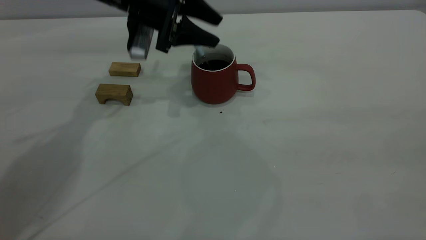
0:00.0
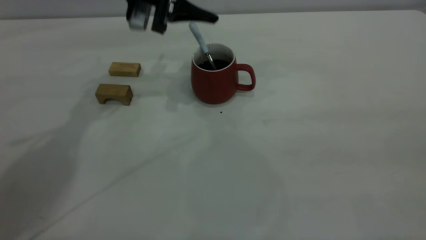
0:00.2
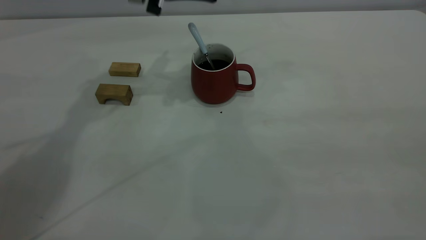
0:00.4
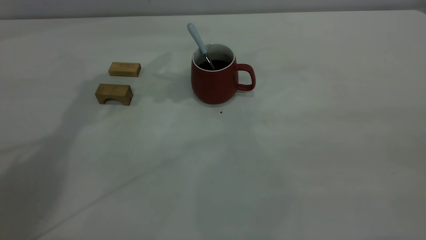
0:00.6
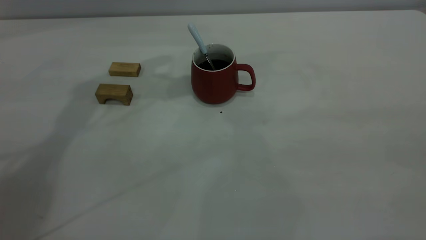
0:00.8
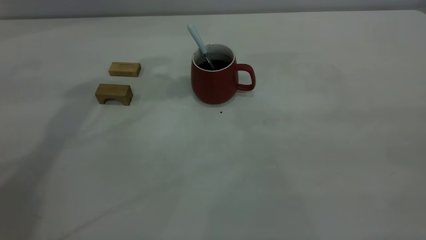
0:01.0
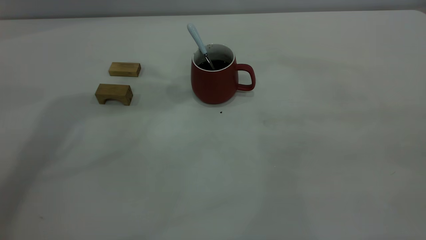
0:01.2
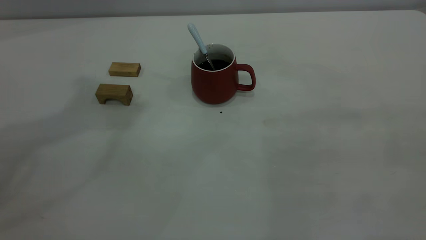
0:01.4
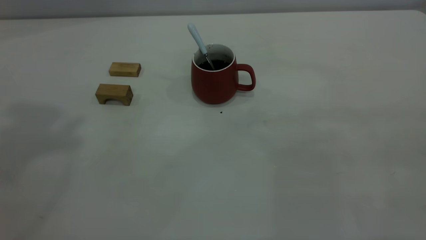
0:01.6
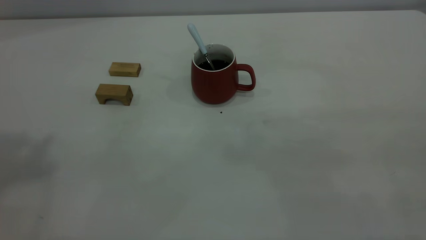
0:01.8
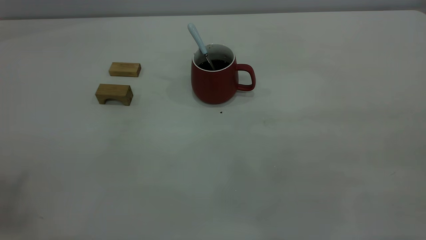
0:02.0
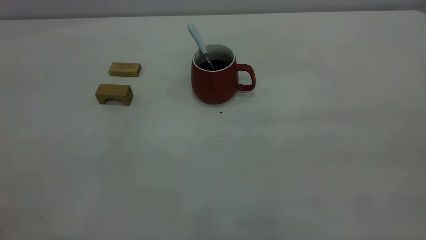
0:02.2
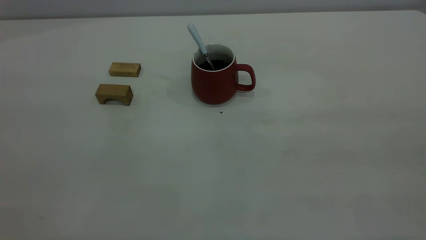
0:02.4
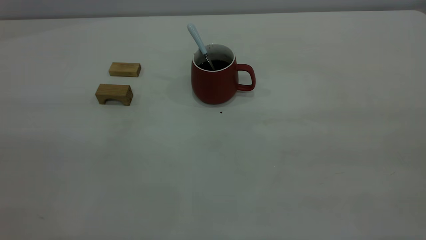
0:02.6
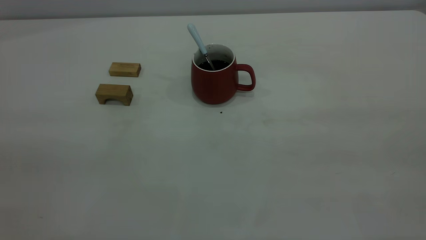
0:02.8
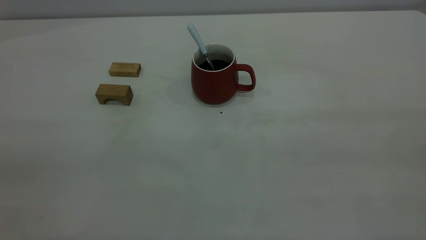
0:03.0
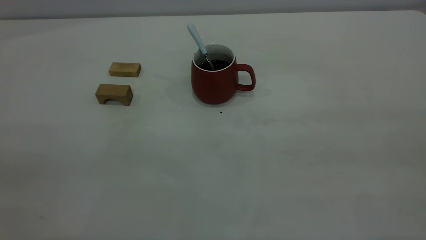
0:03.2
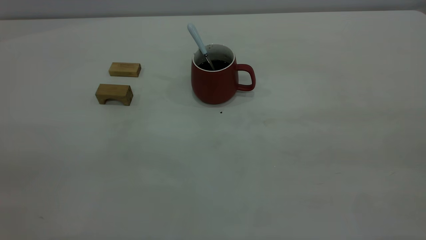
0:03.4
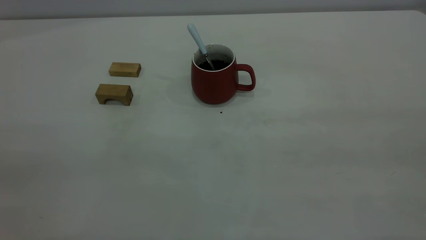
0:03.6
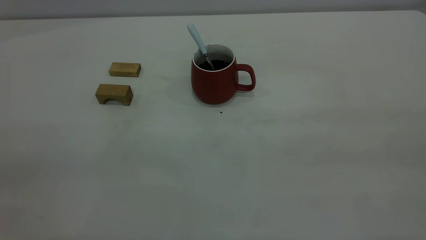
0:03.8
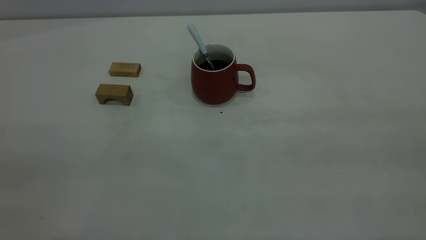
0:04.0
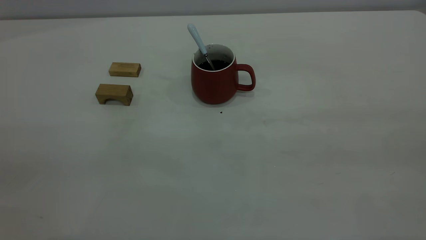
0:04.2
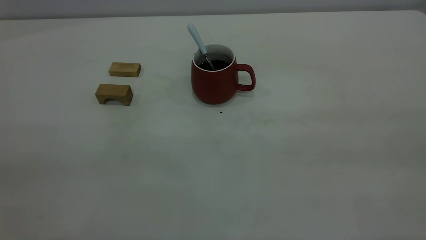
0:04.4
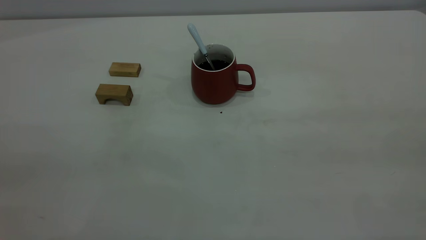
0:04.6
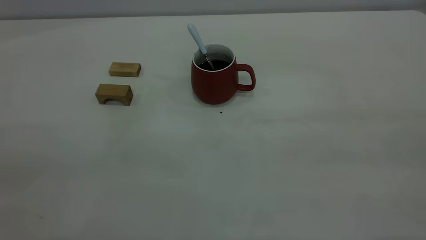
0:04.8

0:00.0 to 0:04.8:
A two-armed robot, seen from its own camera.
0:00.0 to 0:01.6: The left gripper heads upward and backward, covering some 40 cm.
0:03.2 to 0:04.8: Both grippers stay about where they are.
